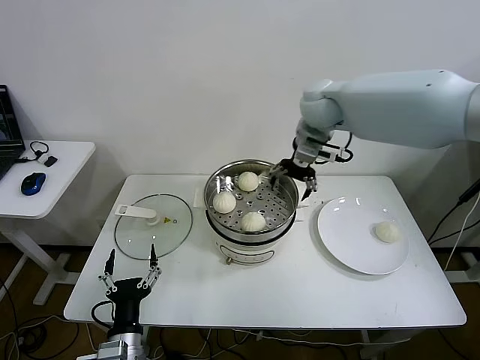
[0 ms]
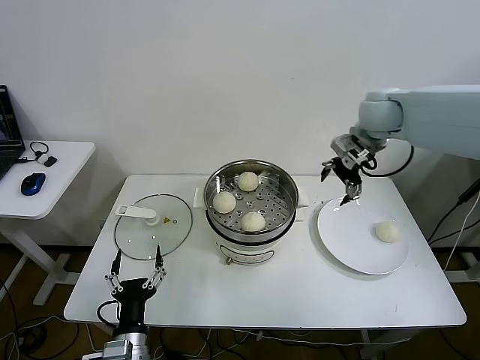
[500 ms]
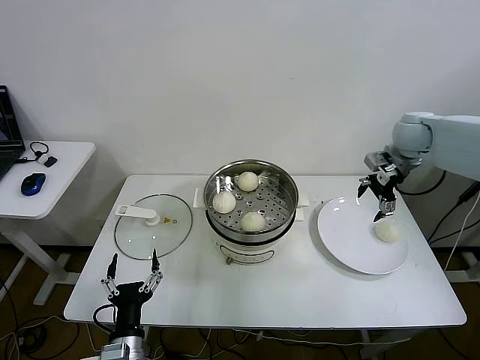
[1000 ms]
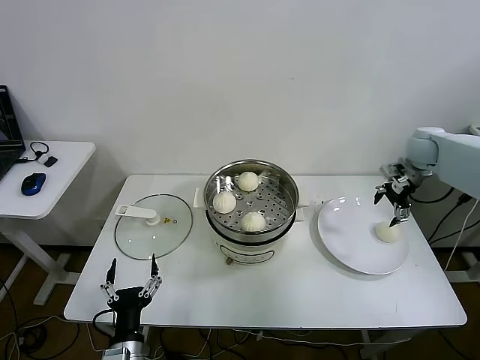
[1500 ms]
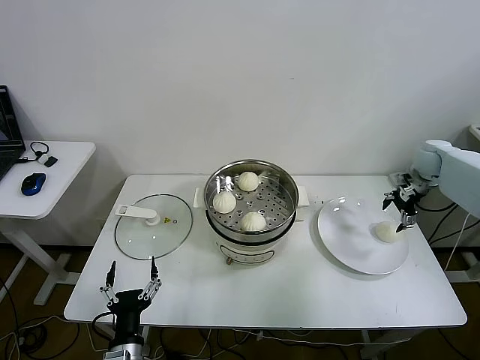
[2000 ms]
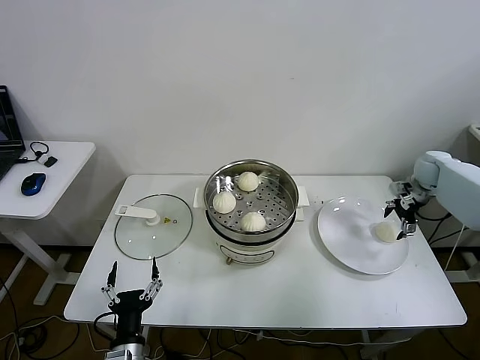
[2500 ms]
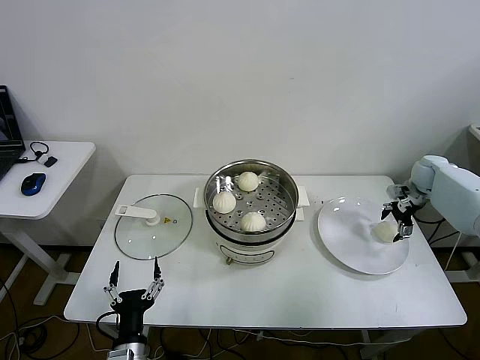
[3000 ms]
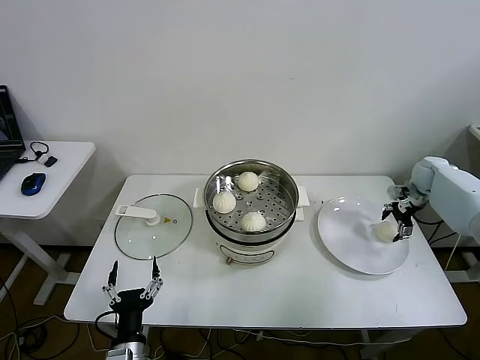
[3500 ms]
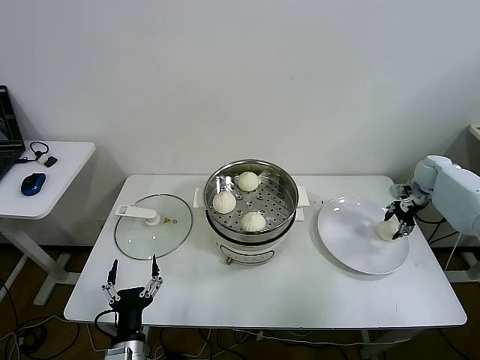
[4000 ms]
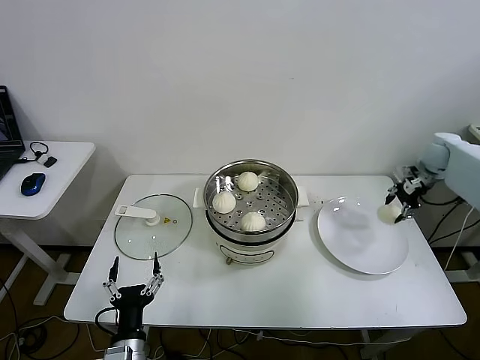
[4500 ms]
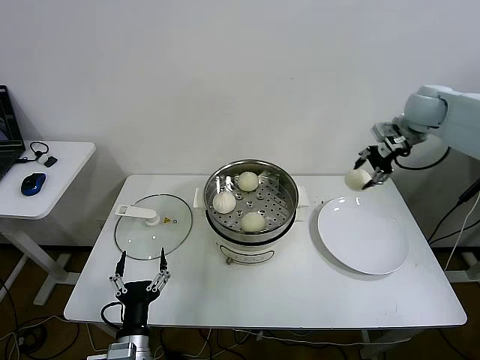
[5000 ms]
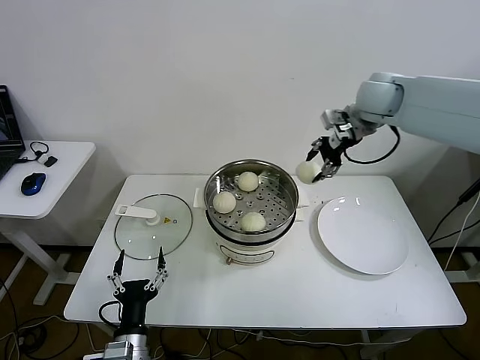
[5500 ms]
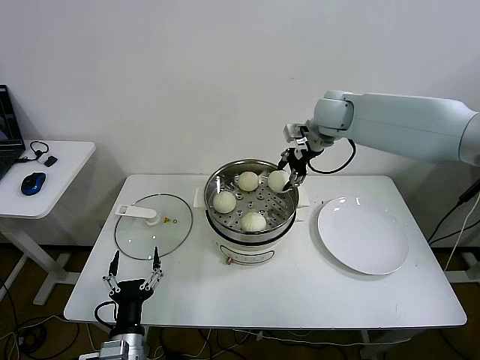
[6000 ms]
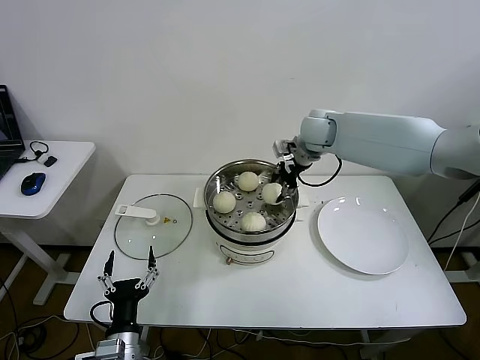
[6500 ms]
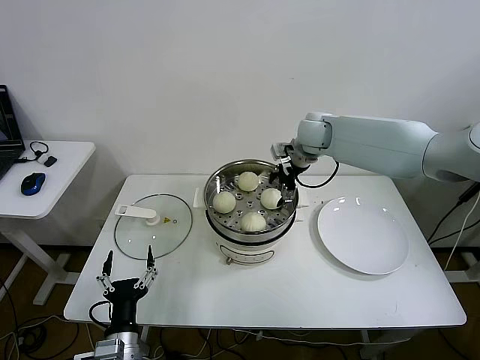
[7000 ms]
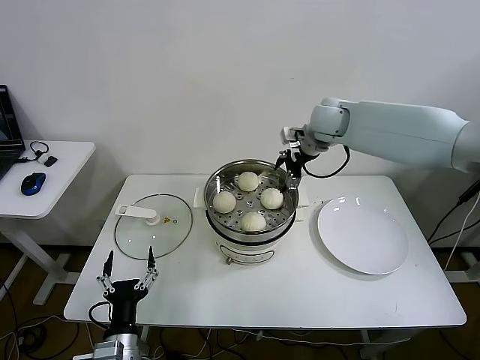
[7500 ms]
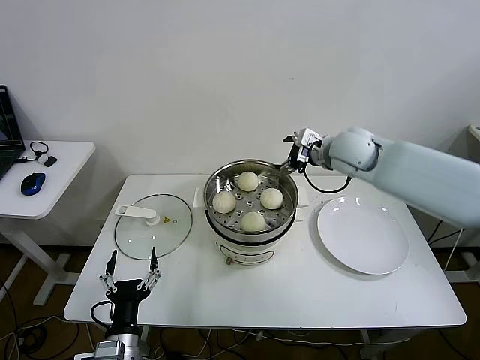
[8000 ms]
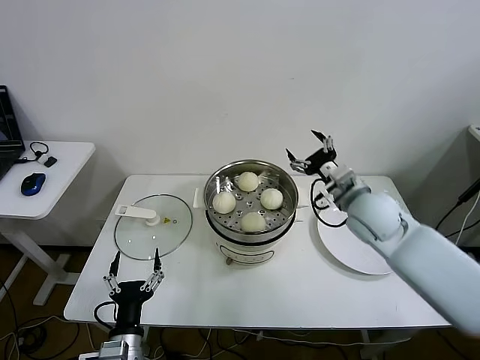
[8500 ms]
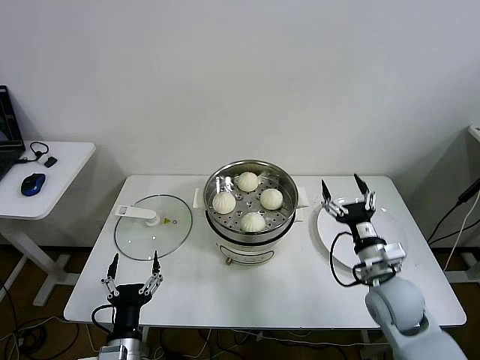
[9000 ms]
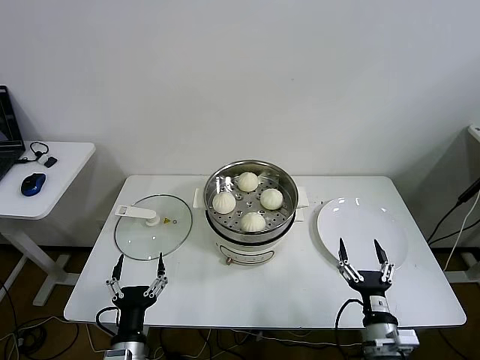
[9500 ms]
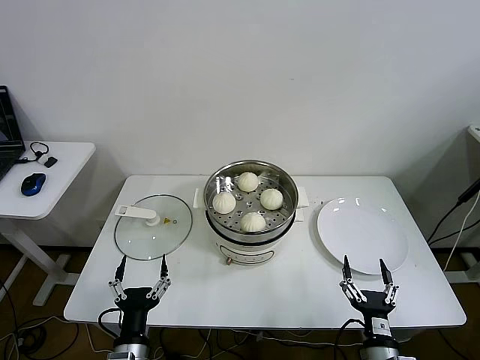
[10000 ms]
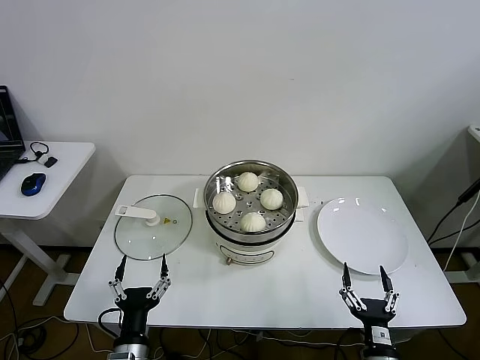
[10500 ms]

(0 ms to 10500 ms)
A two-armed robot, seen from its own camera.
Step, 0 ms - 4000 ms: Grasp the baozi in the plate with right gripper.
Step, 4500 ms - 7000 ms: Place the baozi on the steamer with right gripper.
0 ms - 2000 ms: The right gripper is displaced to the right and downward by roughly 35 cm.
2000 ms - 4000 ms: The right gripper goes about 5 cm downward, and closes its fingers.
4000 ms - 6500 ms: The right gripper goes some 35 cm to the left and upward.
6500 ms - 8500 ms: The right gripper shifts some 20 cm backward and downward, and opens up.
8500 ms - 10500 ms: The right gripper is displaced backward and downward by about 40 cm.

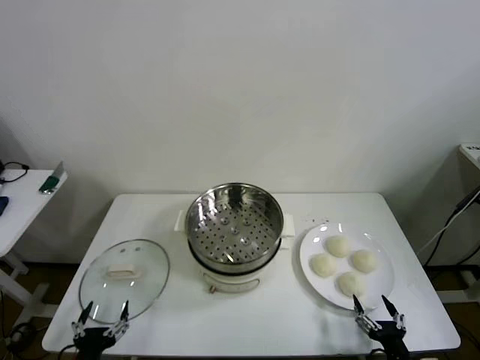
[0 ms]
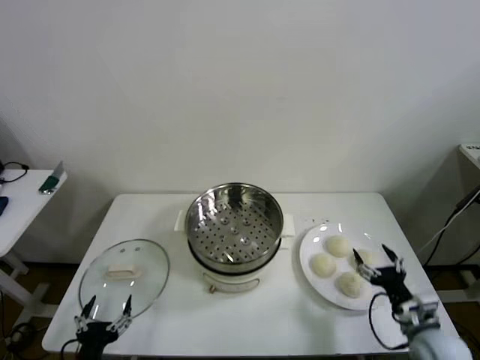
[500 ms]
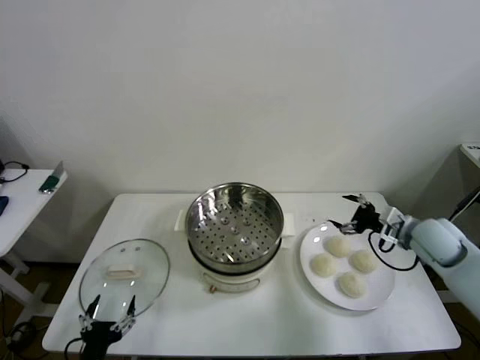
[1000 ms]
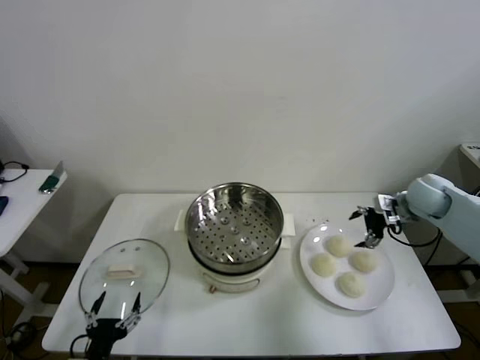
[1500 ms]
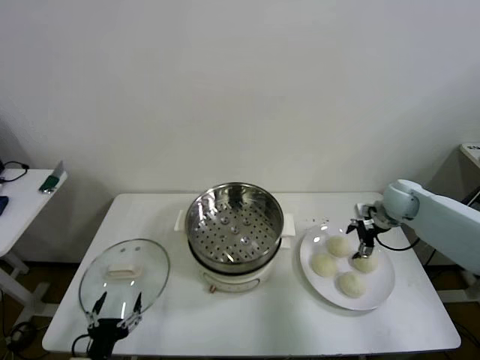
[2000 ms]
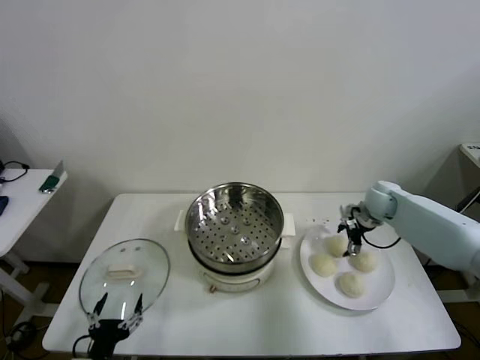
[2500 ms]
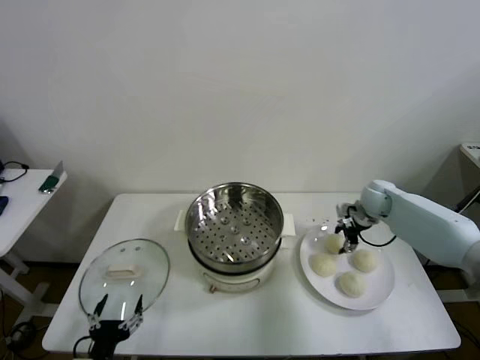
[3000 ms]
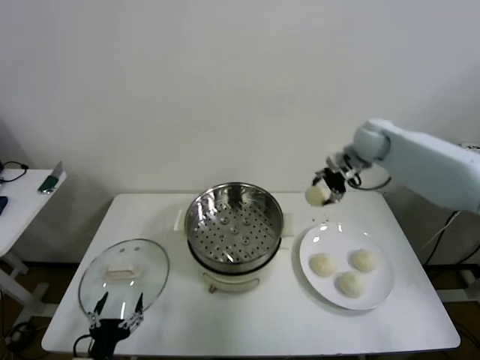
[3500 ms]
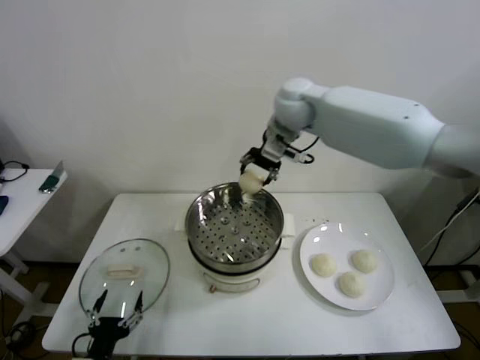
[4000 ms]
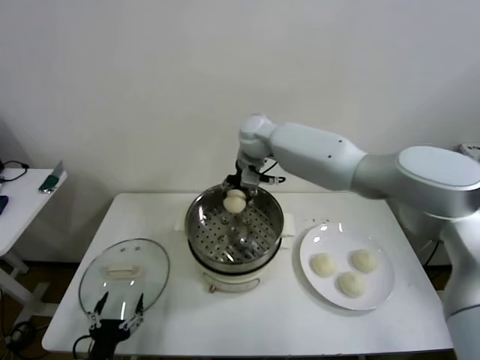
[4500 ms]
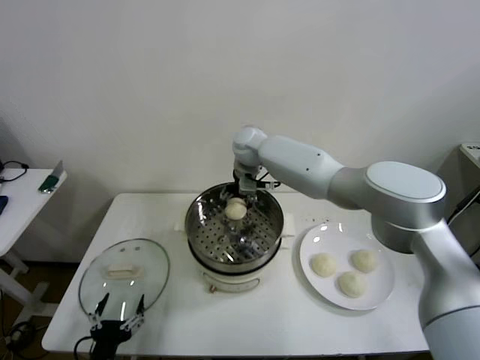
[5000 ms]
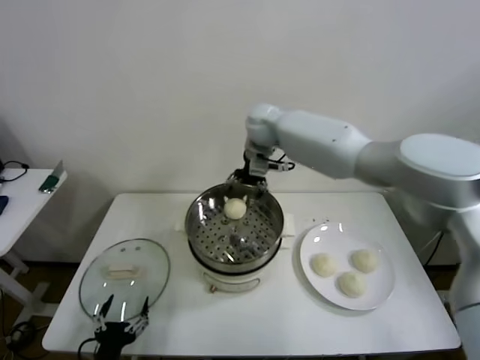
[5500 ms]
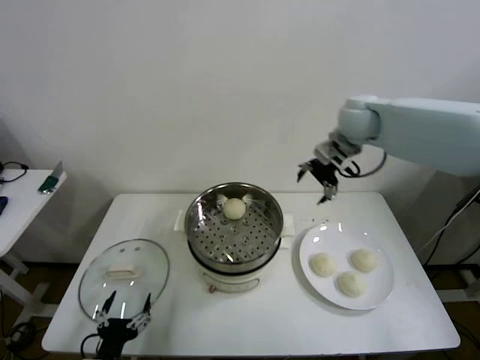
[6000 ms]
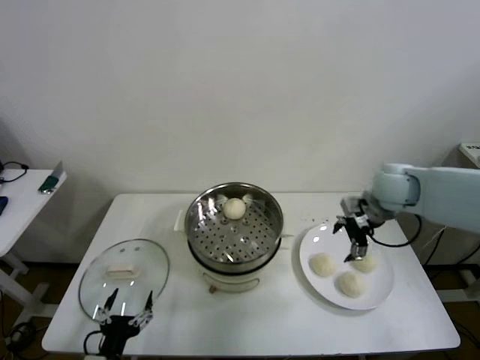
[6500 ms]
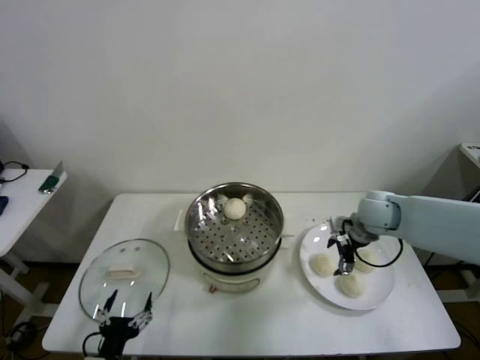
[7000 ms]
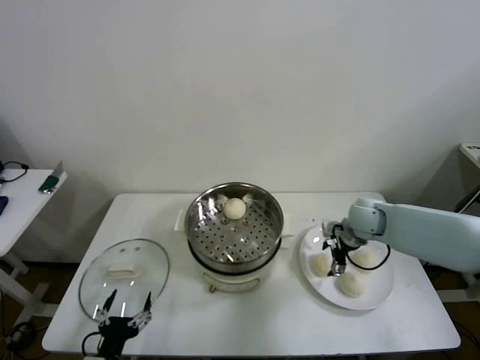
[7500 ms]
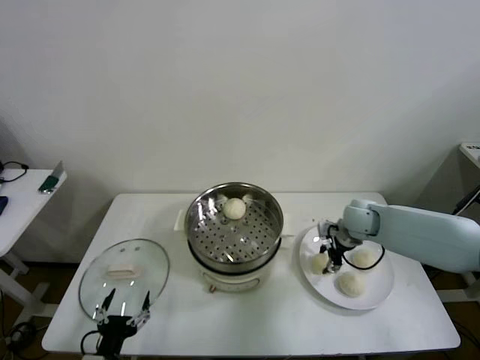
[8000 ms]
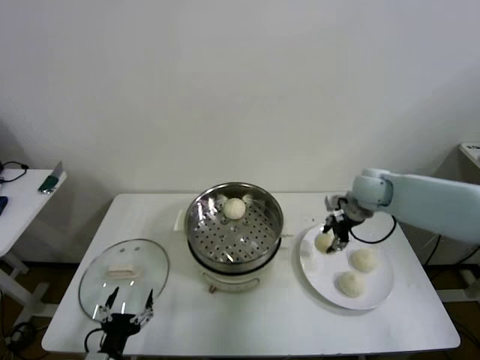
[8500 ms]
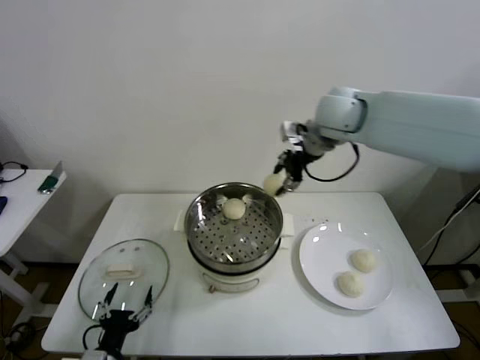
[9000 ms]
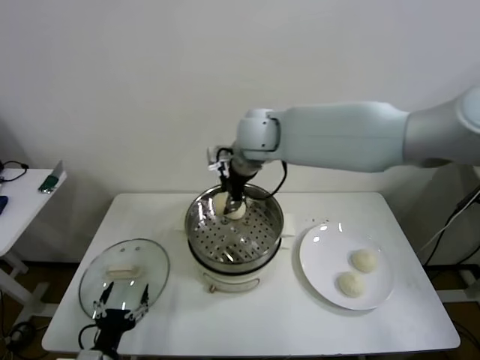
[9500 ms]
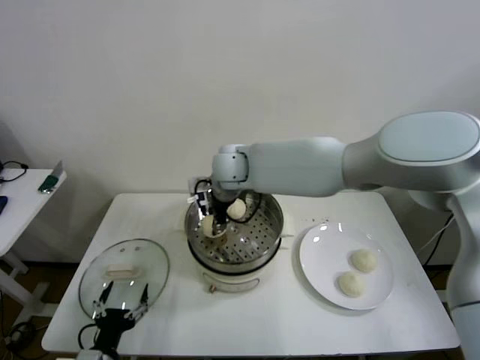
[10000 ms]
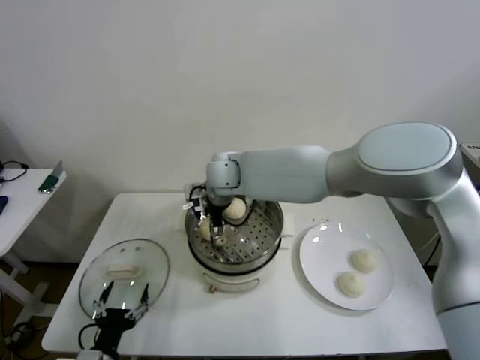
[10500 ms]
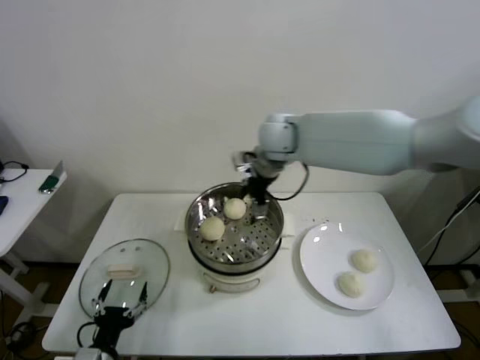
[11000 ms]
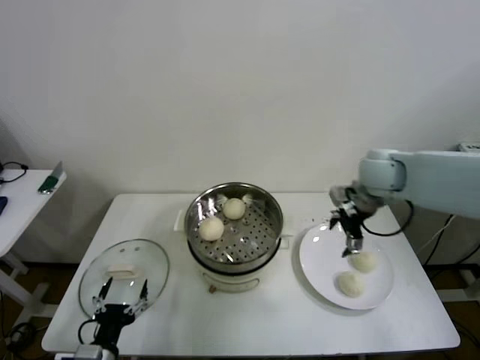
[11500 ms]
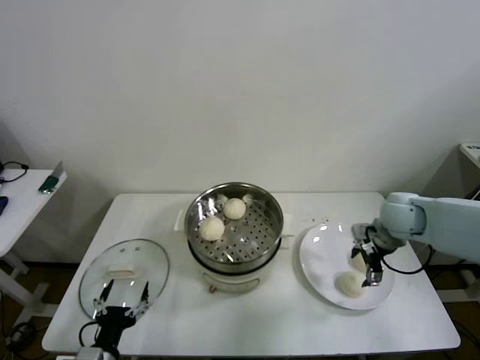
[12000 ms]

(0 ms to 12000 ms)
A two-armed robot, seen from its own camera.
Step, 0 ms - 2500 ms: Grasp the baozi in the plate with right gripper.
Step, 3000 ms - 5000 ms: Place the baozi on the steamer with right gripper.
Step, 6000 ms - 7500 ms: Grasp the baozi in the plate with right gripper.
Step, 8000 ms - 10500 ms: Place the baozi on the steamer with right gripper.
2000 ms - 4000 ms: The right gripper heads to the left and upward, covering roughly 40 cm, and closes its fingers.
4000 ms - 6000 ms: The right gripper heads to the right, covering some 20 cm, and opens up.
6000 ms - 8000 ms: The right gripper goes roughly 20 cm downward, and closes.
8000 ms - 10000 ms: The right gripper is displaced to the left and upward by roughly 35 cm.
10000 ms - 12000 ms: The right gripper moves to the right, approximately 40 cm, and opens its fingers.

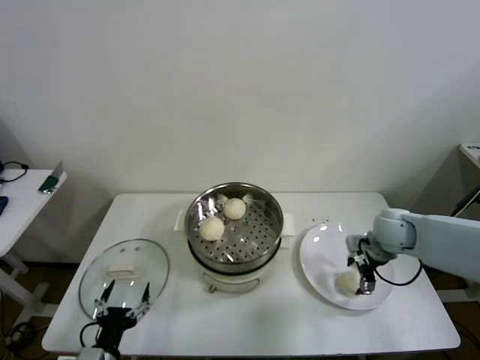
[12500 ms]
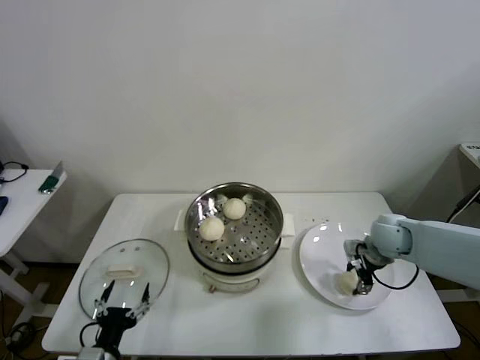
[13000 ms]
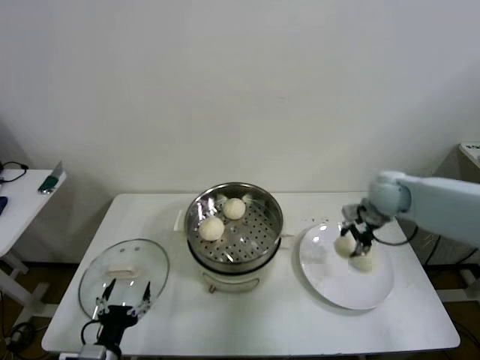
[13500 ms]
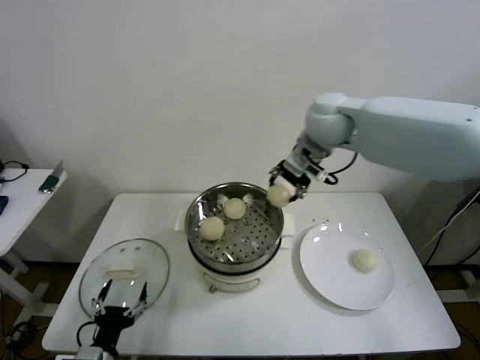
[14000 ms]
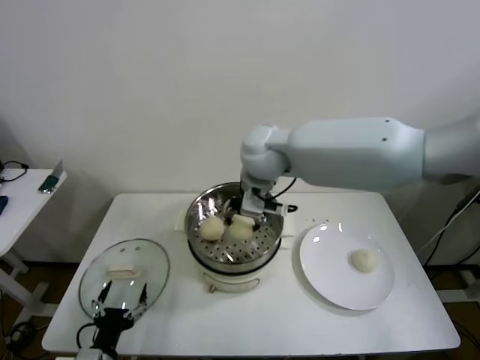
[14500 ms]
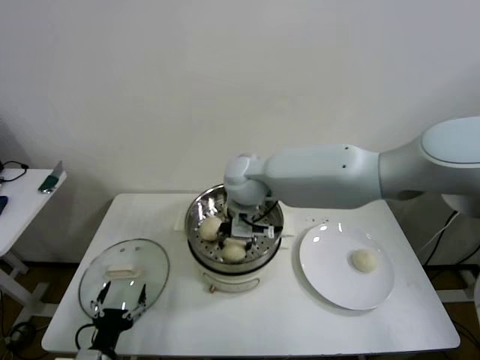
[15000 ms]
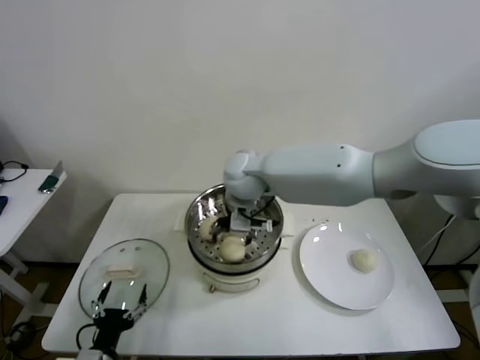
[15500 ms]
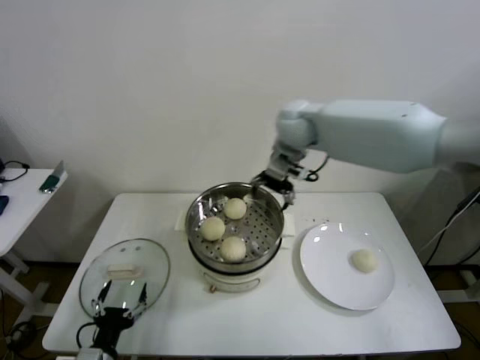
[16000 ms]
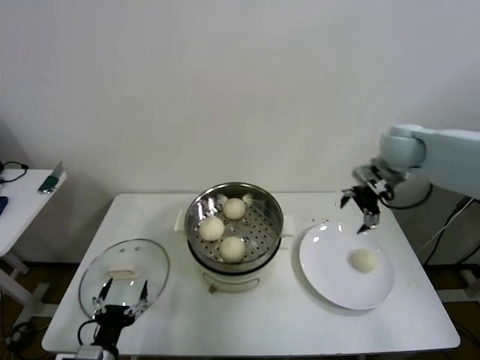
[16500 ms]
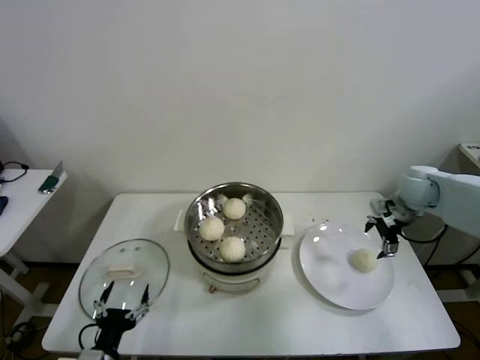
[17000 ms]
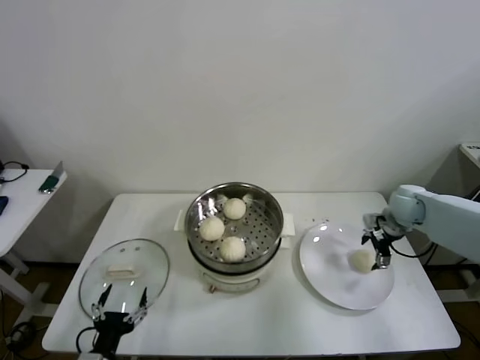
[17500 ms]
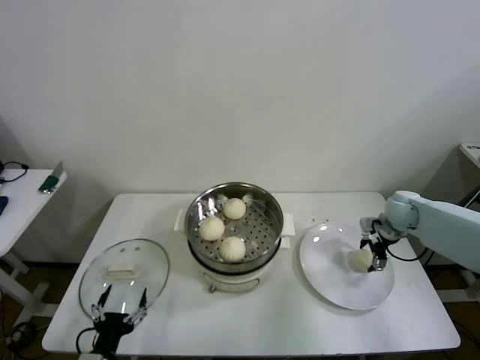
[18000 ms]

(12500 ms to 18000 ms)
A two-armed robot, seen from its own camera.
Step, 13500 ms - 15000 ms: Place the baozi on the steamer with right gripper.
12500 ms - 14500 ms: The right gripper heads to the left and upward, covering some 35 cm, and closes.
14500 ms - 16000 ms: The right gripper heads to the right and forward, covering some 15 cm, and opens up.
16000 ms - 18000 ms: The right gripper travels to the right and downward by about 35 cm.
